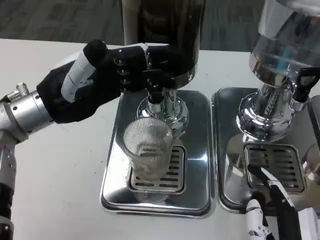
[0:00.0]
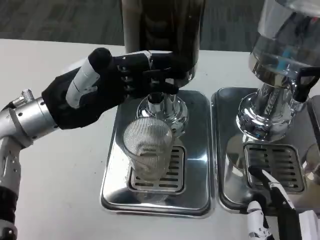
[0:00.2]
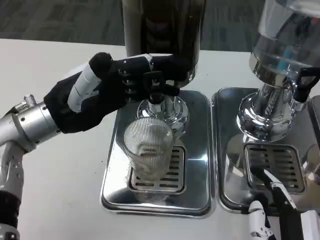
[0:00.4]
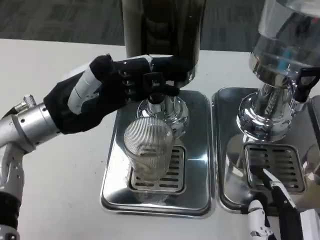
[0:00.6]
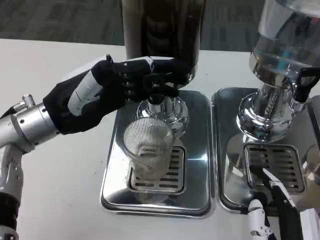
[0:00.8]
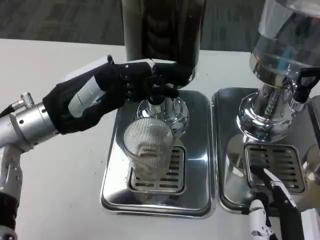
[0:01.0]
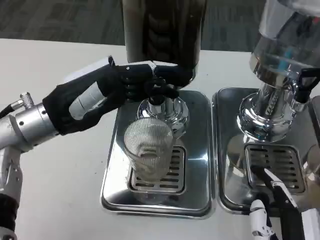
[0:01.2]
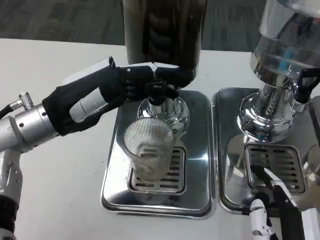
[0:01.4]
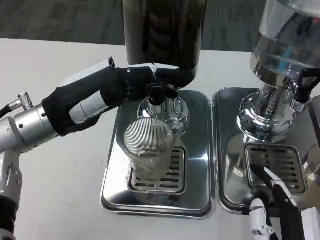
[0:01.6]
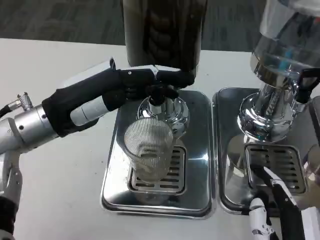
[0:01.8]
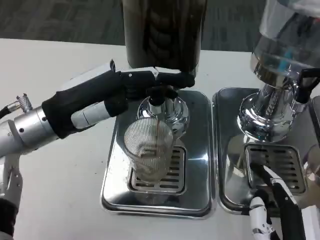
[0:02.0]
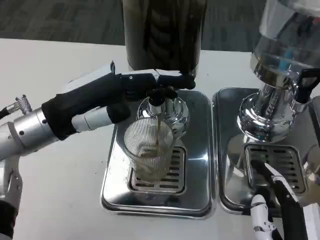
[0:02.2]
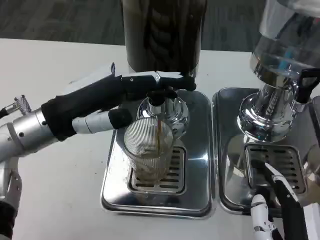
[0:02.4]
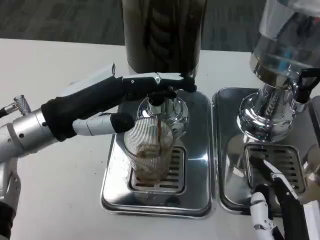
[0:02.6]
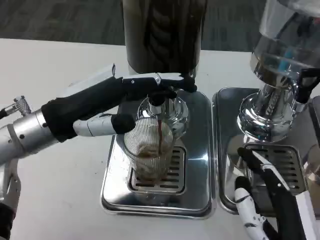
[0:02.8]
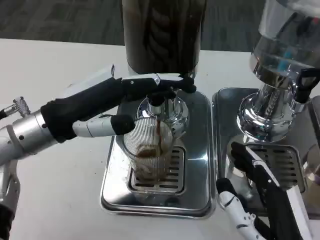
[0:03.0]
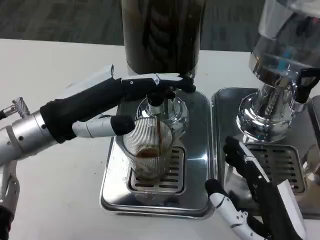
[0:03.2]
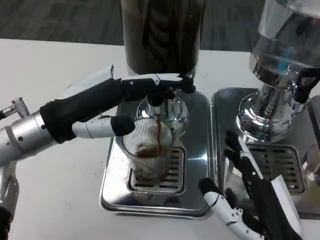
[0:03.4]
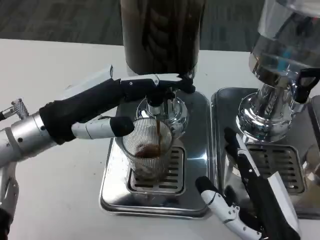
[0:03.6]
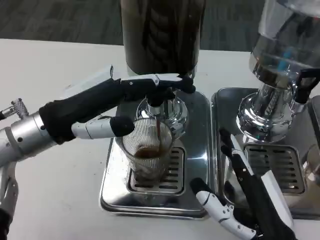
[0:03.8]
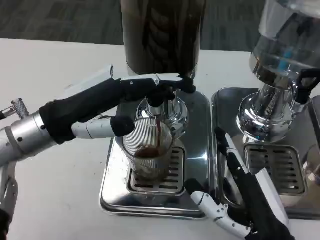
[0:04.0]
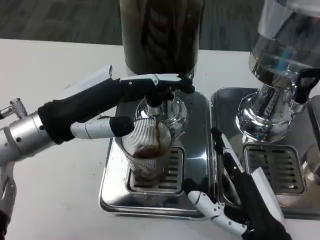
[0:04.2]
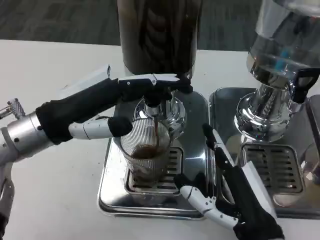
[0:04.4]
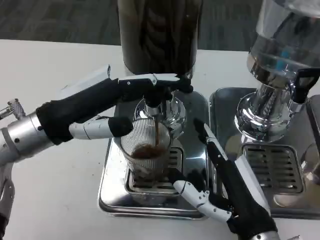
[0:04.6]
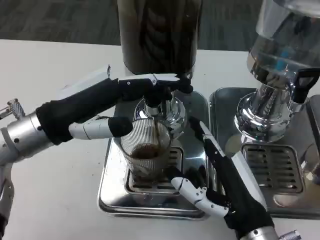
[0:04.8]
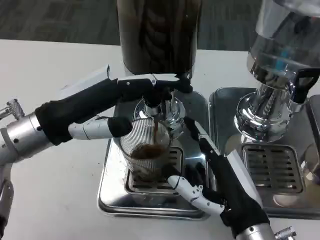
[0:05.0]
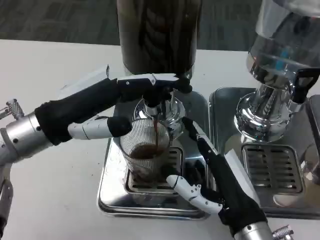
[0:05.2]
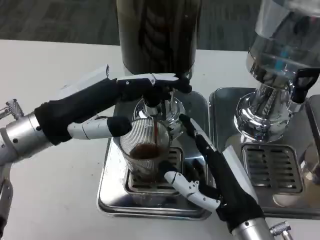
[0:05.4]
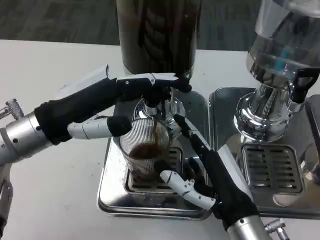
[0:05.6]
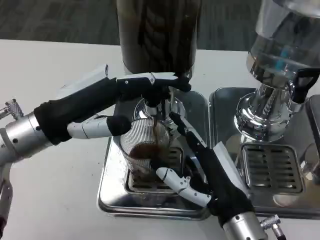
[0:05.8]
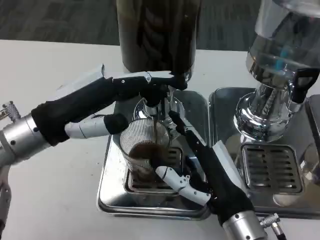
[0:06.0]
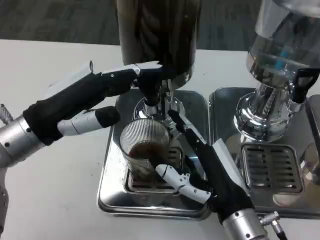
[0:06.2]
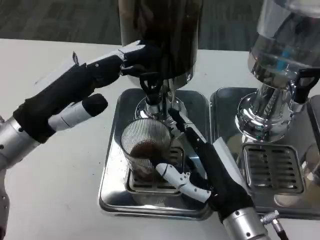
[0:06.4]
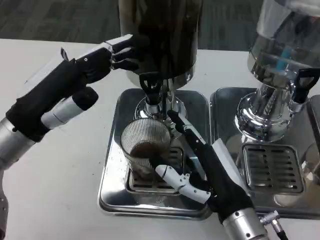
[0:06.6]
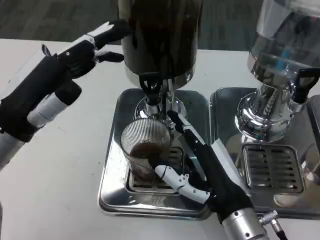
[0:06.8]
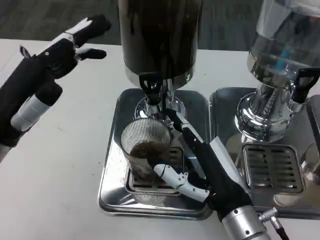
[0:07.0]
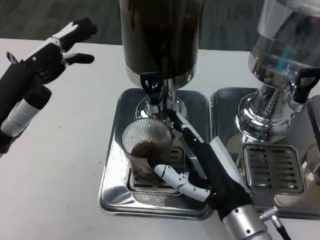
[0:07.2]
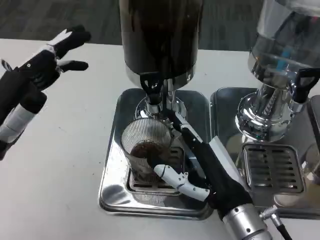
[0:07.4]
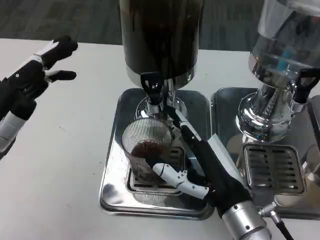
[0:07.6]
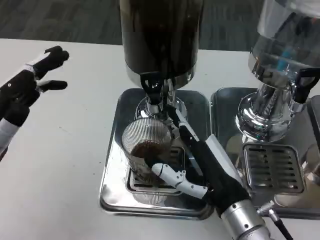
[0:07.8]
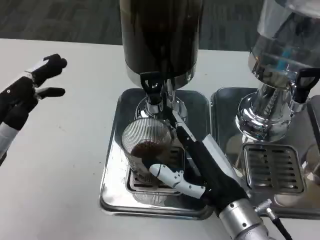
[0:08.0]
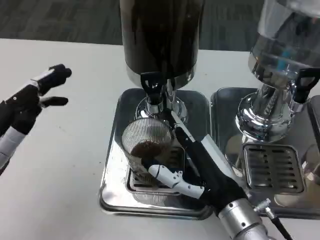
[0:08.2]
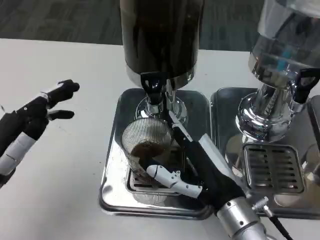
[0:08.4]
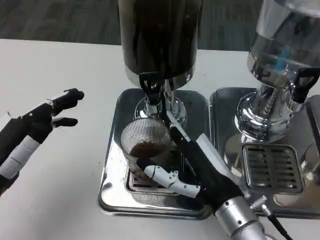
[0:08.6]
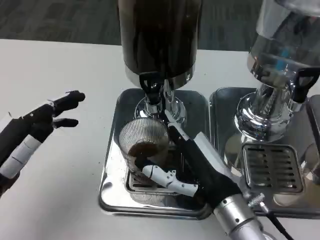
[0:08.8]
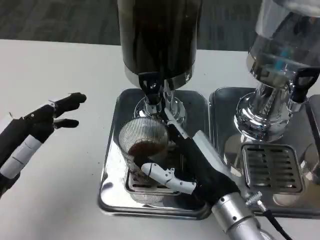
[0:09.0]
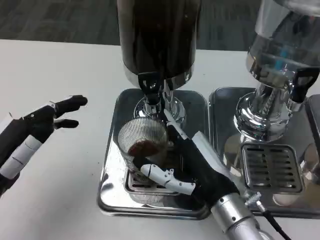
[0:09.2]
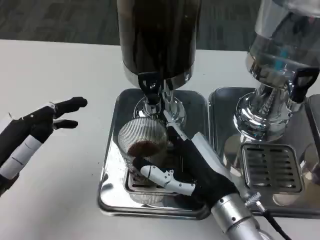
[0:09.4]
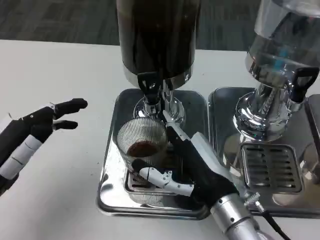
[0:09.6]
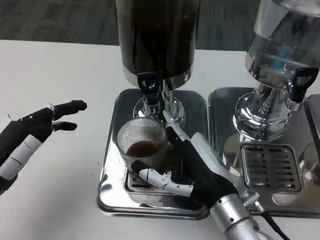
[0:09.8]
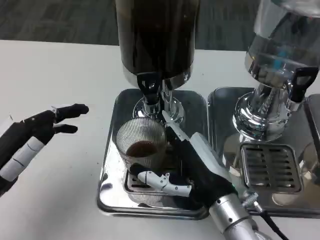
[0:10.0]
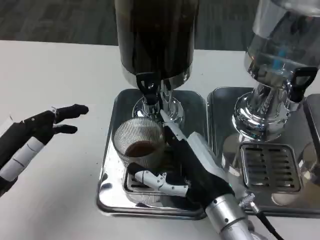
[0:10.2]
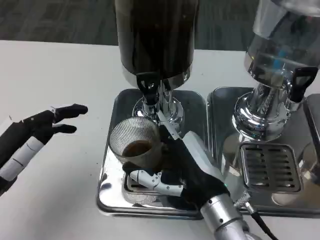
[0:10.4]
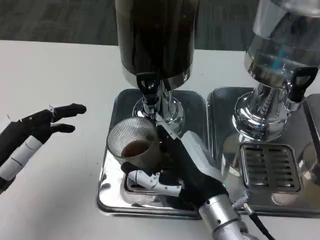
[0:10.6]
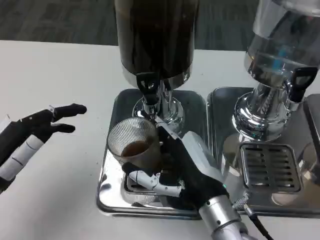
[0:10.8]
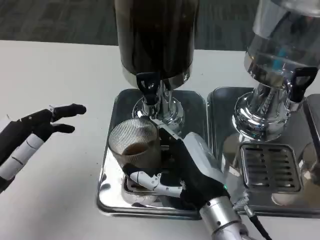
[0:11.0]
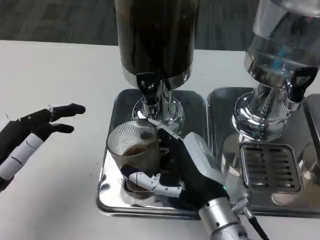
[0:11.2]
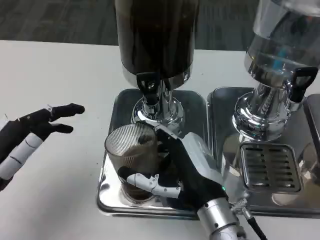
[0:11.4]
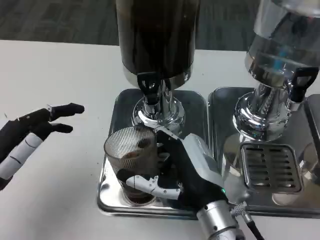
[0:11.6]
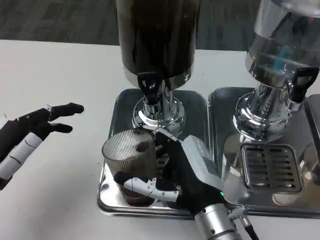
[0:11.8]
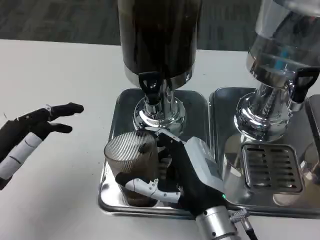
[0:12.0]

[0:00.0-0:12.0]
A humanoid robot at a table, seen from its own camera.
Task of the whole recording: Grasp the cup under the faucet to collect the drink, then remove the cup.
0:00.0 to 0:01.6: The hands make only small movements.
0:01.6 to 0:03.0: The hands move only a little.
0:03.0 to 0:04.4: The right hand shifts by approximately 5 cm.
0:04.4 to 0:06.0: The hands make only small movements.
0:06.0 to 0:07.6: The left hand goes some 10 cm backward and to the left.

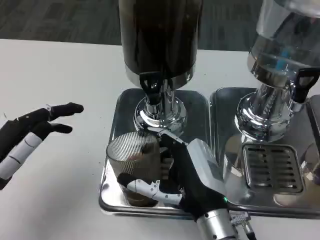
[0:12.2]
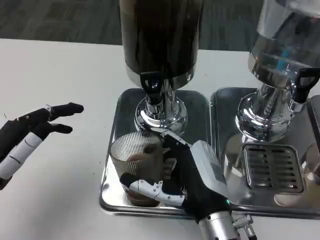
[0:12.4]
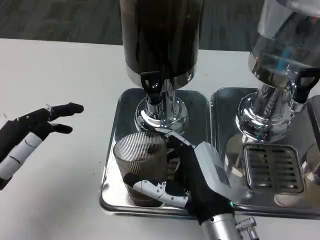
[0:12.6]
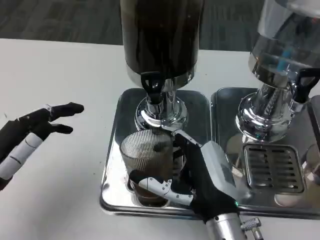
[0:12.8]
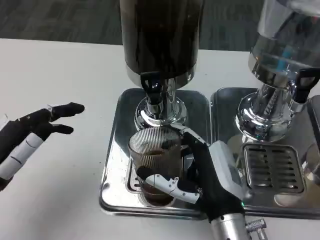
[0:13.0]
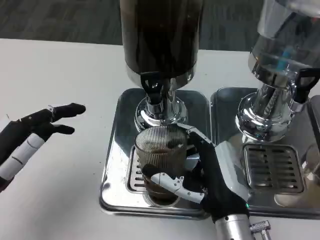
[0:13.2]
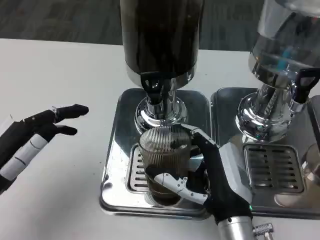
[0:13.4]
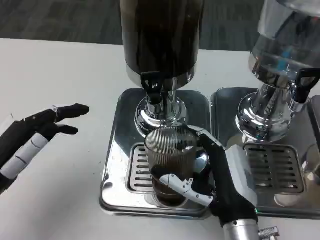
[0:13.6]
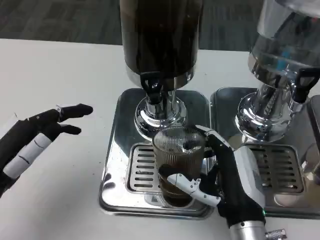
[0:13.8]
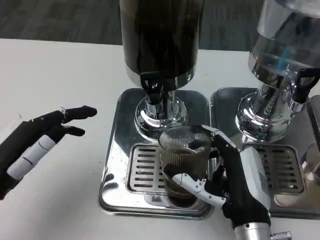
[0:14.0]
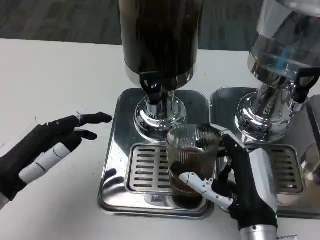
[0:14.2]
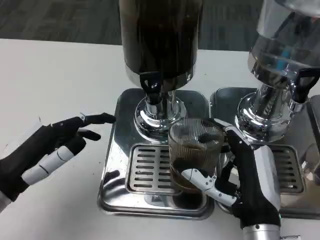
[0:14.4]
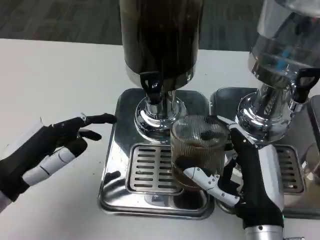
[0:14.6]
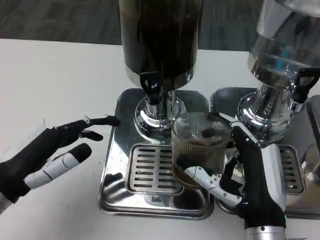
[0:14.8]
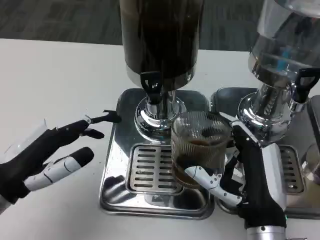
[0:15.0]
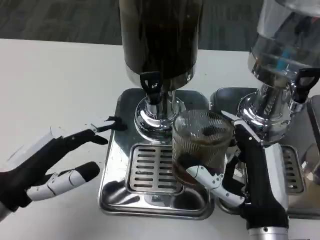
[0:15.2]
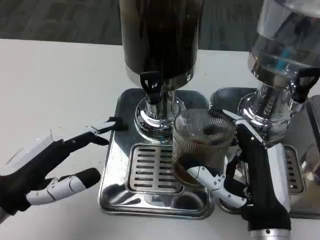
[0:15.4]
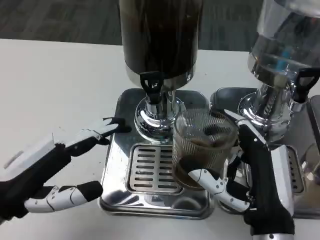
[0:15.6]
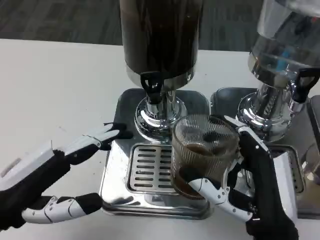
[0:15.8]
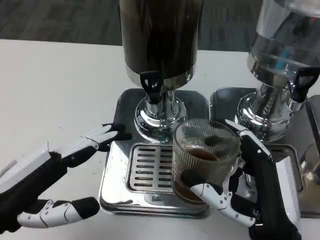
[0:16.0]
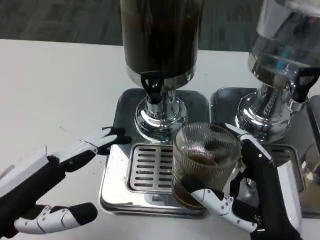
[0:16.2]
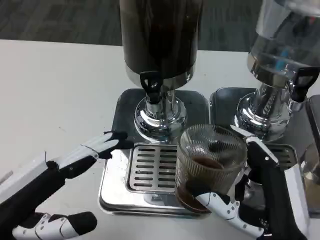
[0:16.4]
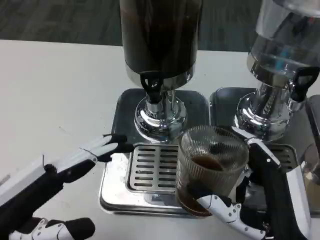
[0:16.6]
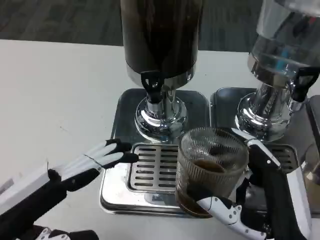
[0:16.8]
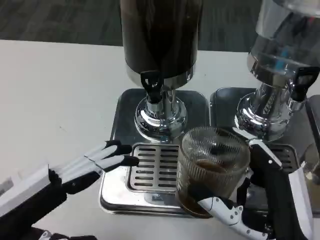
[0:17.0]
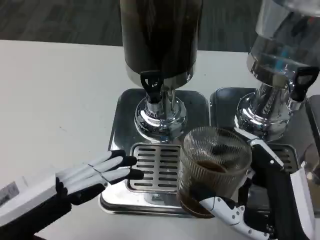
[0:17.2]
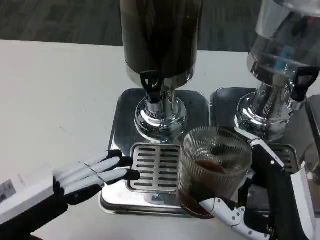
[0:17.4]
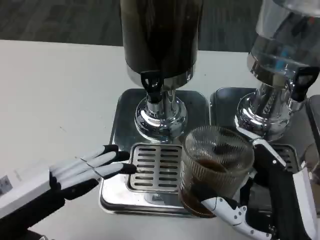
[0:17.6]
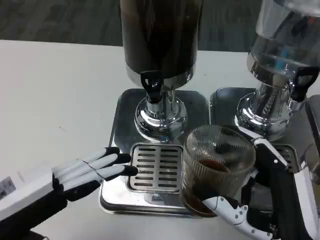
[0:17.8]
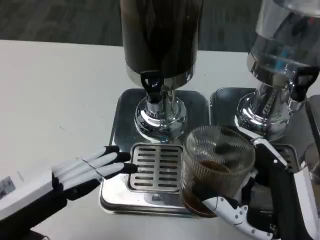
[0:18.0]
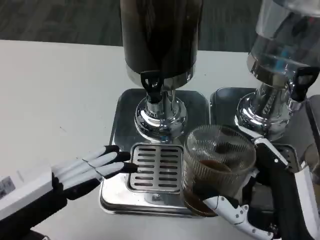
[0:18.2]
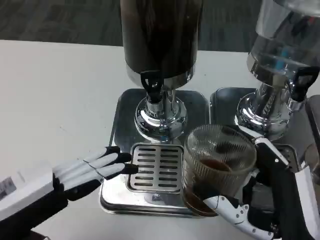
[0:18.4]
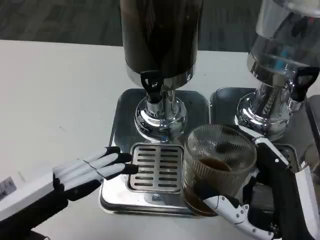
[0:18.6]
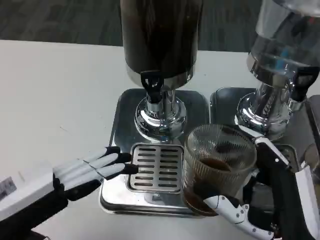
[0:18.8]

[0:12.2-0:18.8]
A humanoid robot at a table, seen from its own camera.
Task of the whole recording: Grasp the cup under the faucet to collect the drink, then remove the cup.
0:15.4 to 0:17.2: Both hands travel together backward, roughly 5 cm.
0:17.2 to 0:18.8: Neither hand changes place.

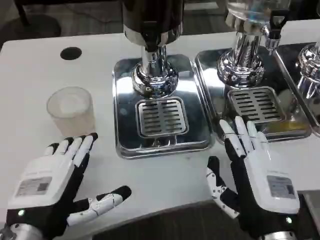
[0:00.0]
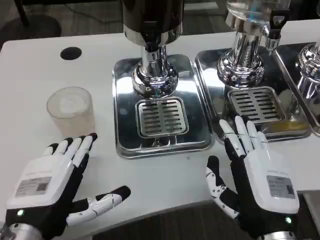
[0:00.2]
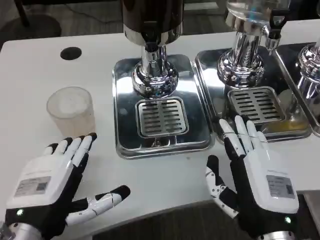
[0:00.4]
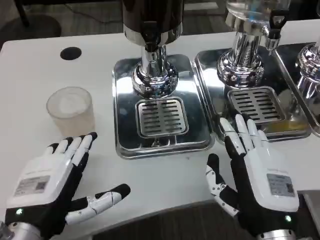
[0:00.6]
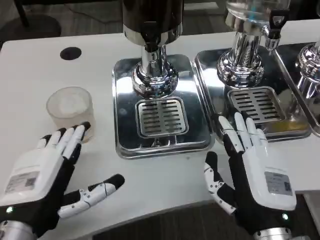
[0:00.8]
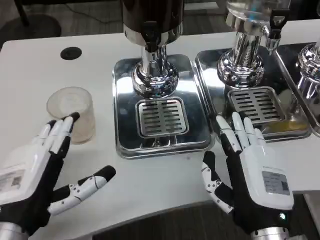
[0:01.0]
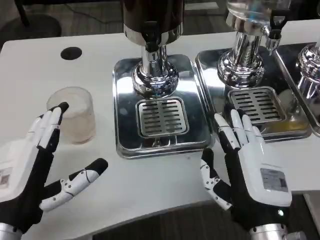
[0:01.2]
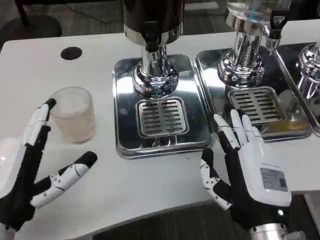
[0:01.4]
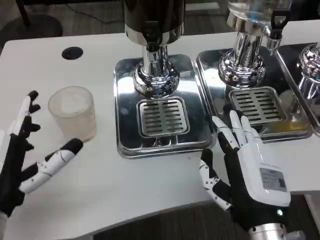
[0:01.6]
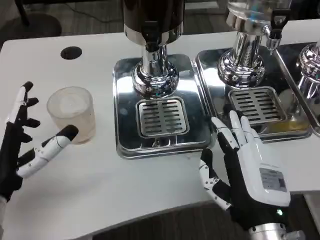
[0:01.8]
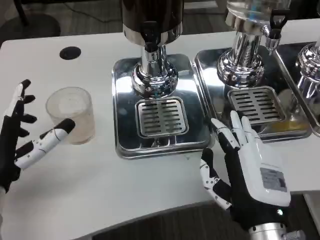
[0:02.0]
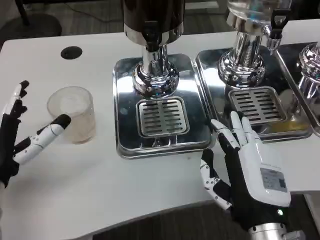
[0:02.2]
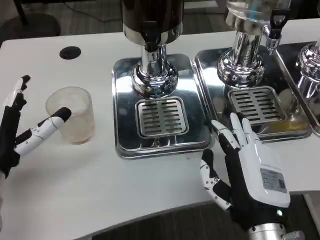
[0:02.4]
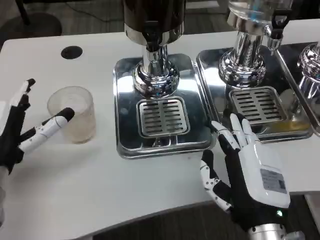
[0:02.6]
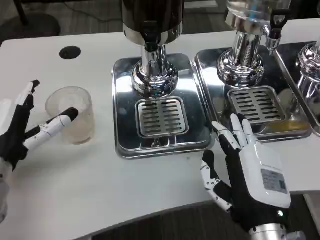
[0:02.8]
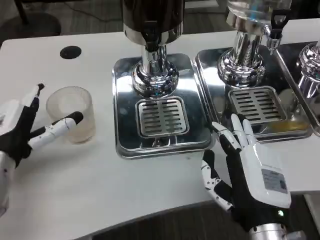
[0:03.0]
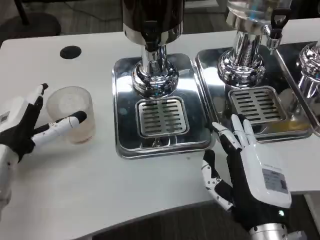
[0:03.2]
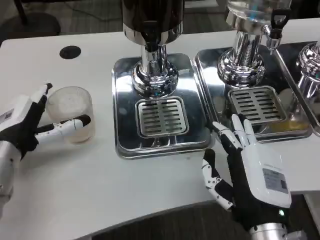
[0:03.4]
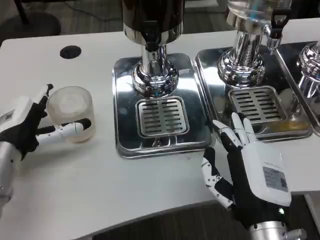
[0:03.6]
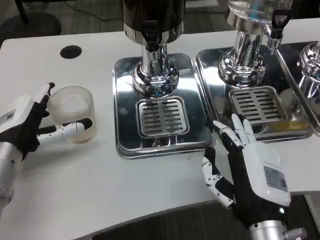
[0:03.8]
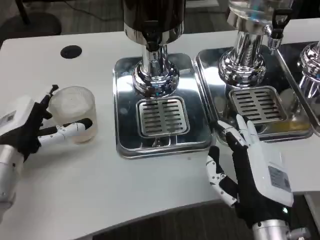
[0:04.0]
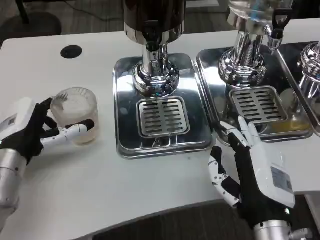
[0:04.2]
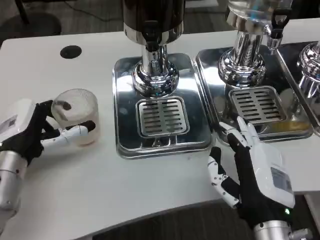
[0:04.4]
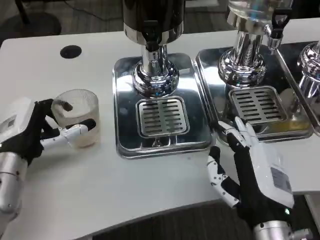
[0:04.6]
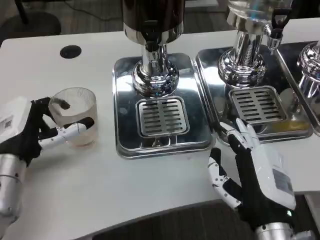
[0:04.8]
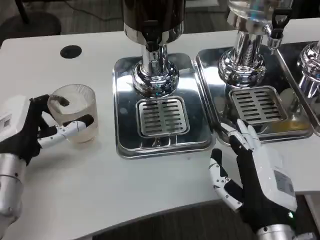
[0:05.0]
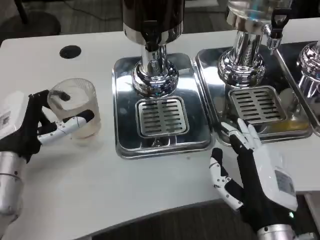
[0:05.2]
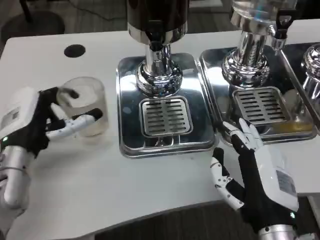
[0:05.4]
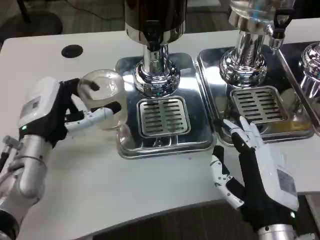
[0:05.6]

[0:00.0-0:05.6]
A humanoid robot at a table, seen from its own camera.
Task of the whole recording: Grasp the cup under the faucet to collect the drink, then remove the cup.
0:01.4 to 0:02.8: The left hand travels forward by about 10 cm.
